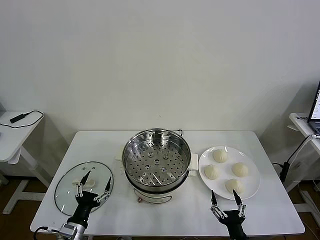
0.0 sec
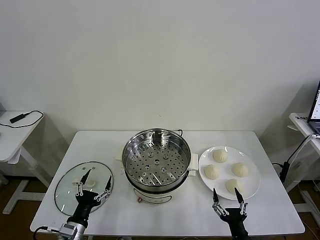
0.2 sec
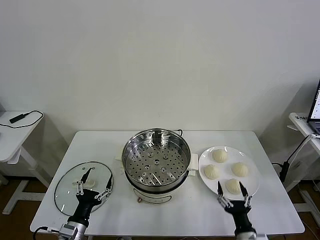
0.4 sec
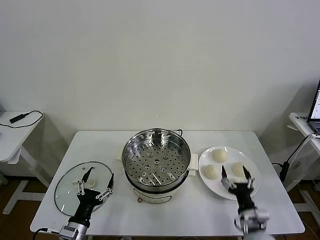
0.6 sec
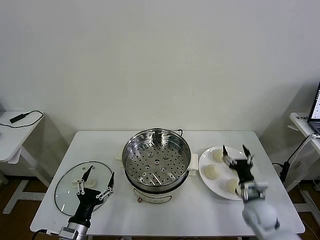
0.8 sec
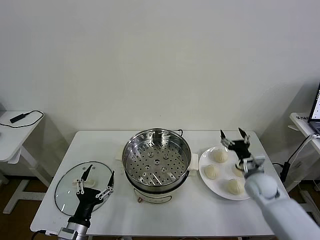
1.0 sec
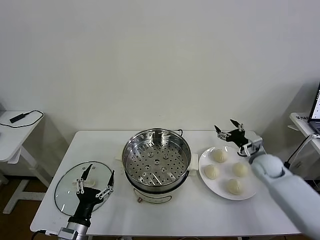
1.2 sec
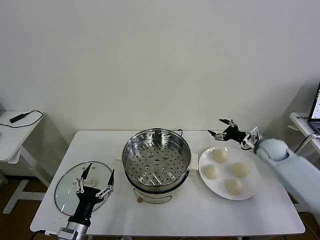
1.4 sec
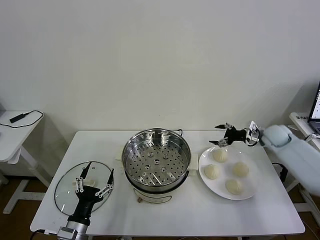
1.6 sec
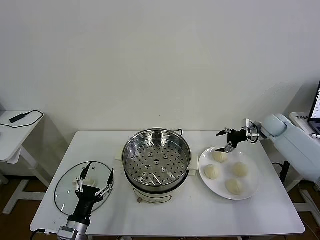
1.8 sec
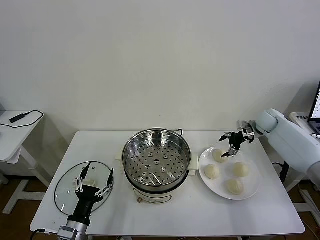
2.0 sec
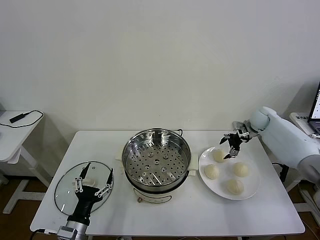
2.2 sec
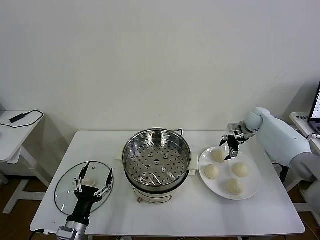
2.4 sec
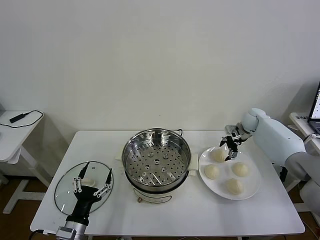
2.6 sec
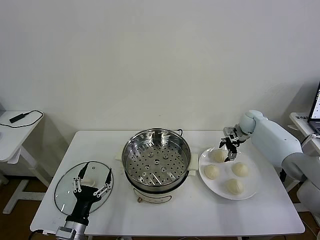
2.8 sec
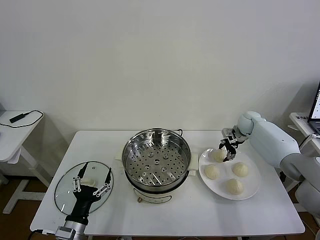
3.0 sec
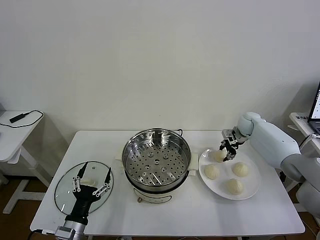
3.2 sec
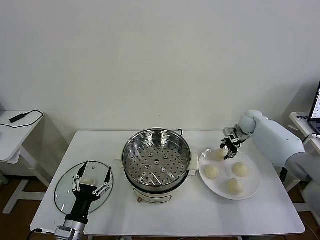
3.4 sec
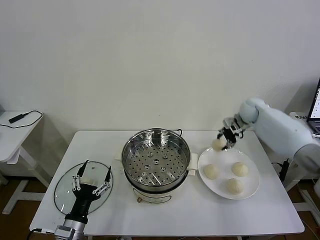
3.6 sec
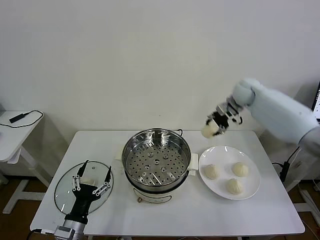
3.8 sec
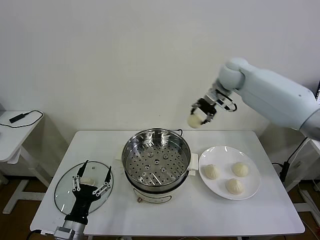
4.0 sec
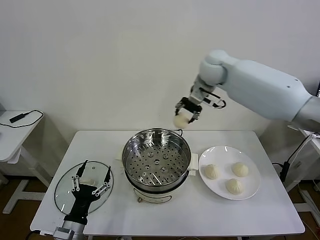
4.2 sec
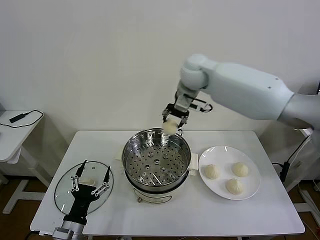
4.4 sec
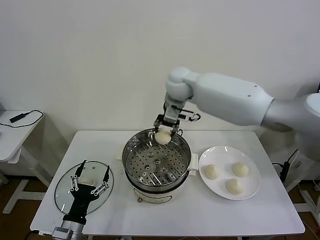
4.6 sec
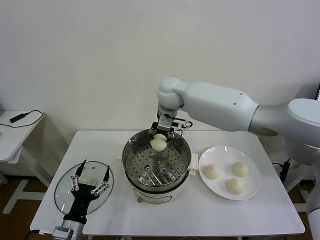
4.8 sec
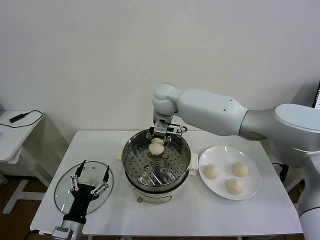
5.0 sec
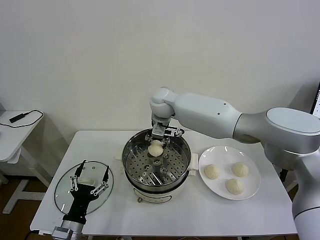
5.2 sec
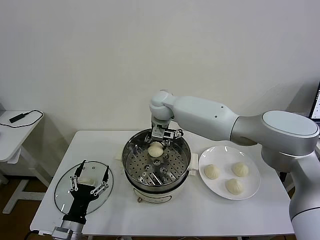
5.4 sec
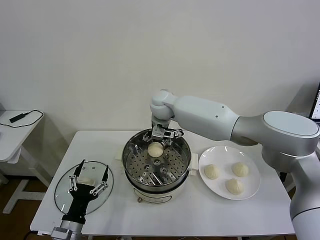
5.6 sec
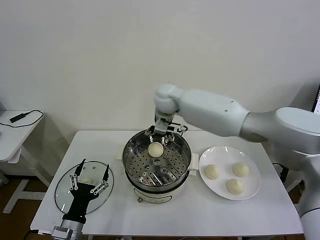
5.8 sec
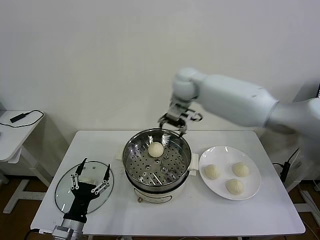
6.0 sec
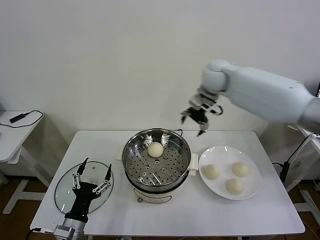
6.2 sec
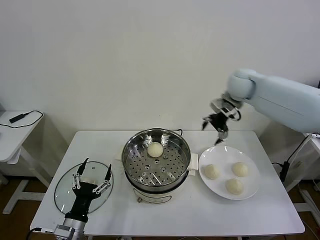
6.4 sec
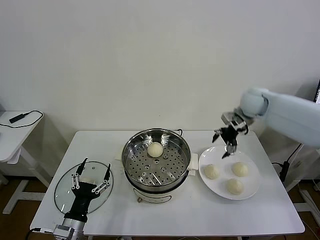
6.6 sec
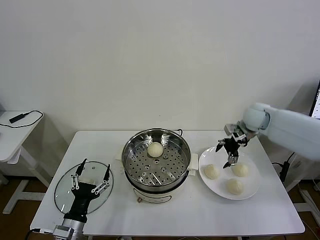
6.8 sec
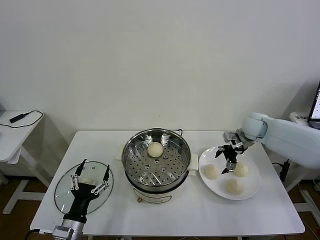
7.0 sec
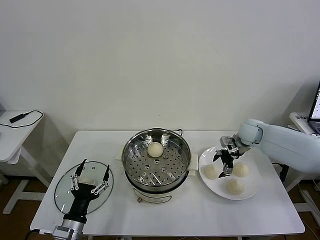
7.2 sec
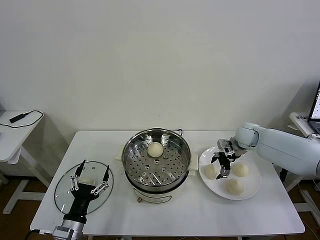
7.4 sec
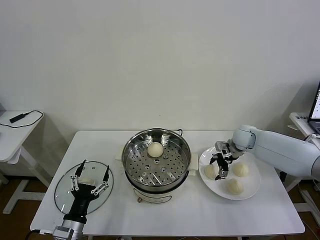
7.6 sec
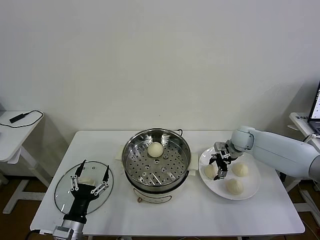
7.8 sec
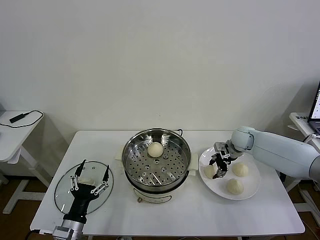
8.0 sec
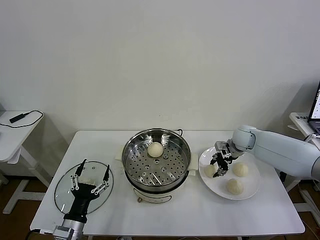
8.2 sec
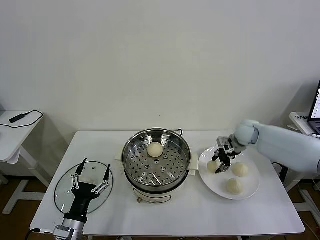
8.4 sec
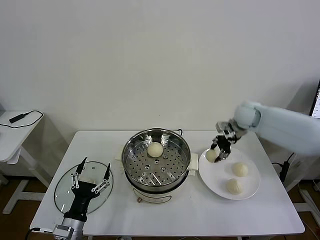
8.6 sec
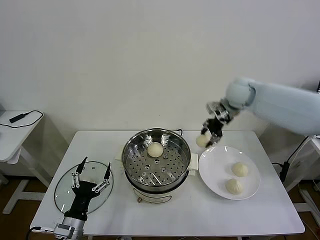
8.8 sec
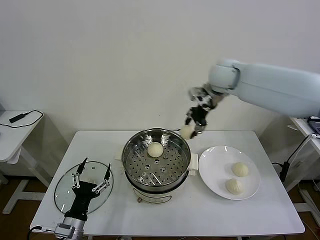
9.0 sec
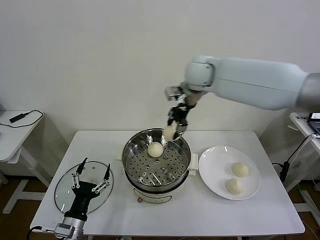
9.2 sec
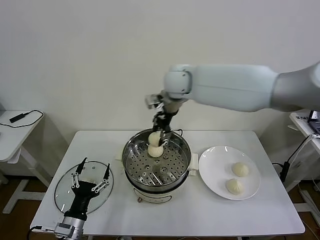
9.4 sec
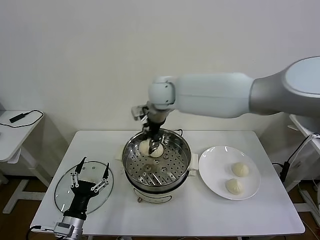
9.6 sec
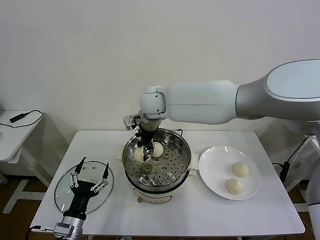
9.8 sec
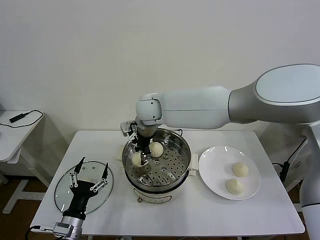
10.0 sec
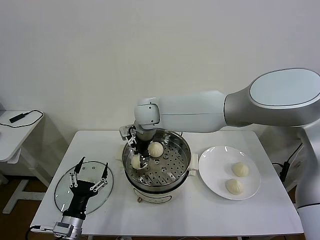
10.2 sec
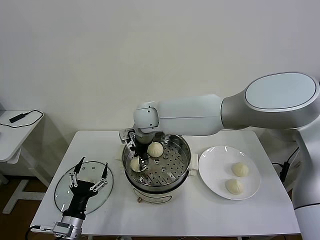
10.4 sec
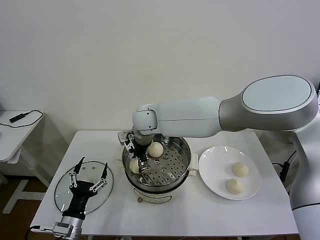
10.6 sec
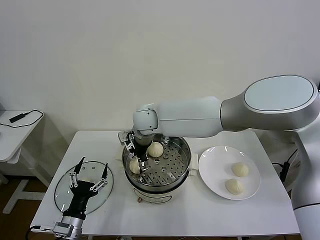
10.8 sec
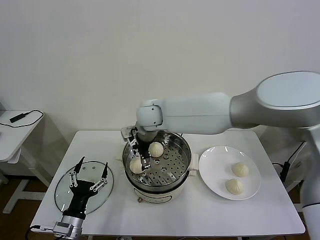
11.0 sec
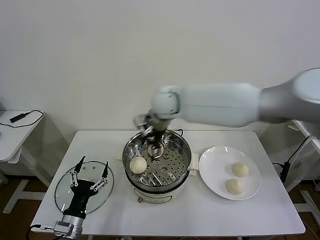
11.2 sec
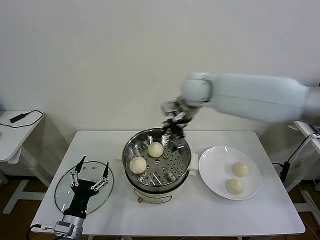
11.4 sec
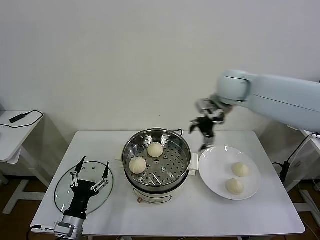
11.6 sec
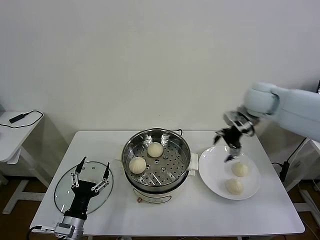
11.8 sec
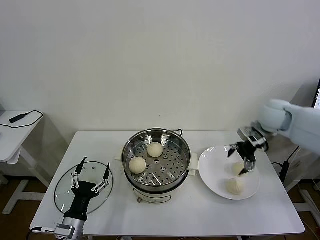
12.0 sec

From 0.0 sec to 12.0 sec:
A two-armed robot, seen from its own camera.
Task of the whole recording: take steamed baozi put them in steamer then cover it.
Step, from 0.0 sec to 3.2 sec: Grasp the baozi in the plate with right gripper.
Step, from 3.4 sec to 5.6 sec: Place the baozi on the steamer with right gripper.
Step, from 5.8 sec to 8.0 sec: Grasp the baozi in the plate with right gripper.
Step, from 8.2 sec to 10.8 sec: Place the baozi on the steamer with right gripper.
From 1.6 sec to 3.0 sec: The right gripper heads to the left and forward, covering some 10 cm, and closes its fingers.
From 3.0 sec to 4.4 sec: The right gripper shifts approximately 40 cm to the left and upward.
From 4.4 sec to 6.0 sec: The right gripper travels to the right by roughly 5 cm, and opens.
From 6.0 sec to 7.6 sec: The right gripper goes about 30 cm downward and to the right.
From 7.6 sec to 9.0 sec: The right gripper heads upward and to the left, covering approximately 30 cm, and closes up.
From 9.0 sec to 10.4 sec: The right gripper heads to the left and downward, covering about 25 cm.
From 10.4 sec to 12.0 sec: The right gripper goes roughly 40 cm to the right, and opens up.

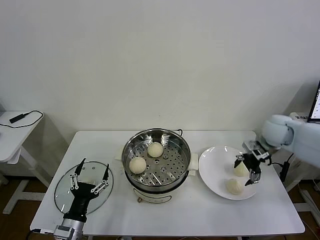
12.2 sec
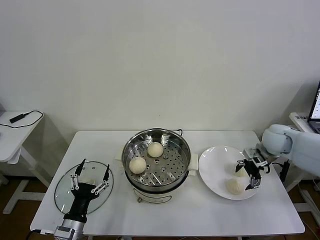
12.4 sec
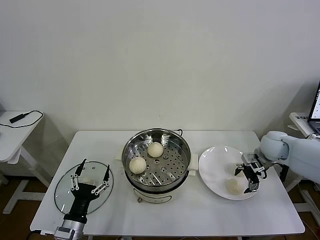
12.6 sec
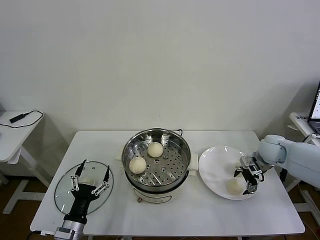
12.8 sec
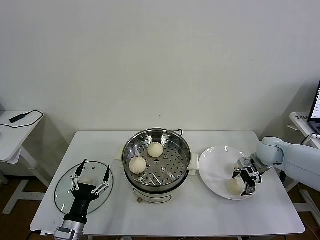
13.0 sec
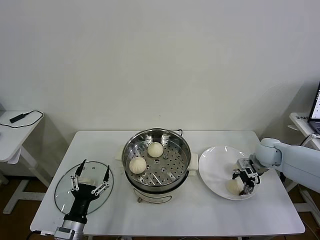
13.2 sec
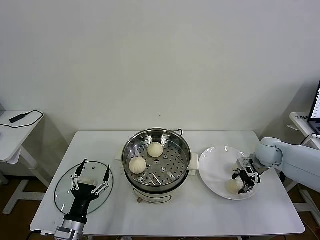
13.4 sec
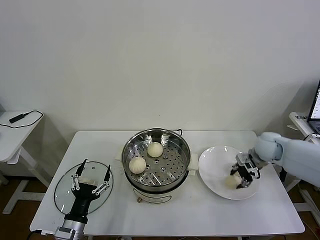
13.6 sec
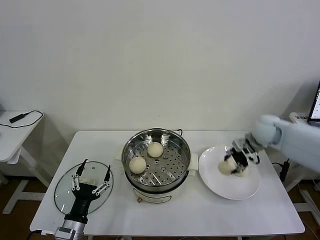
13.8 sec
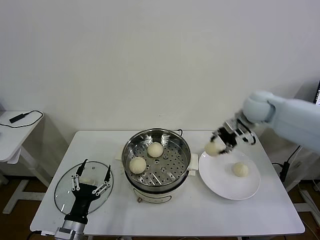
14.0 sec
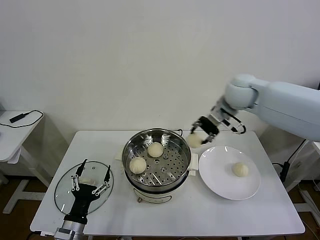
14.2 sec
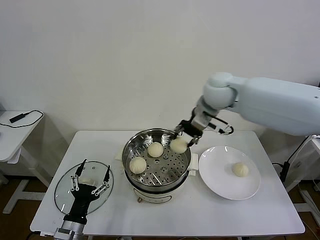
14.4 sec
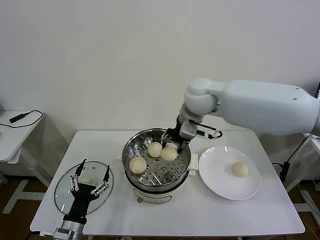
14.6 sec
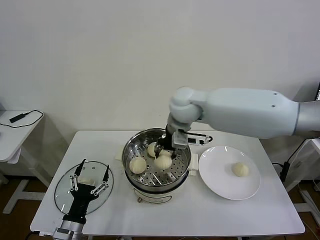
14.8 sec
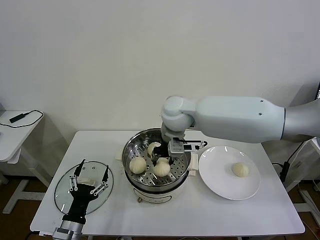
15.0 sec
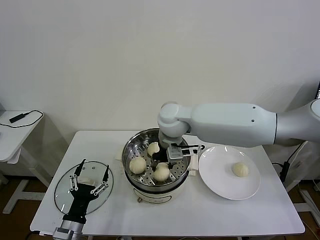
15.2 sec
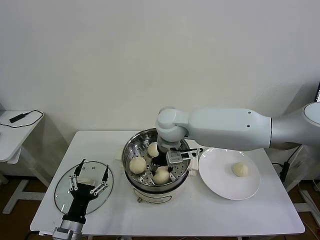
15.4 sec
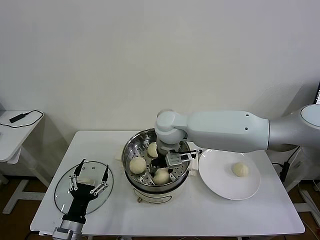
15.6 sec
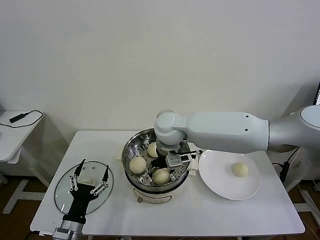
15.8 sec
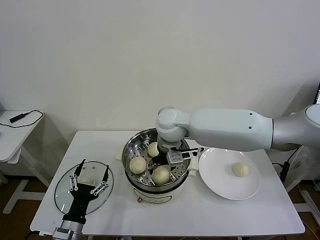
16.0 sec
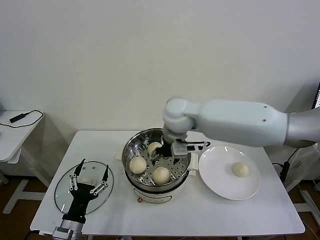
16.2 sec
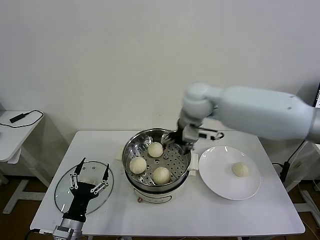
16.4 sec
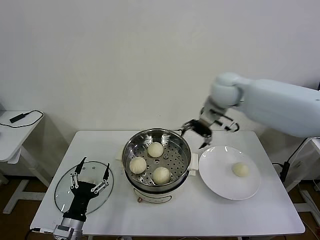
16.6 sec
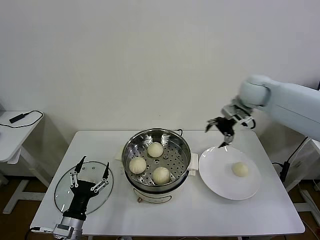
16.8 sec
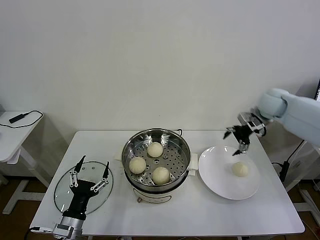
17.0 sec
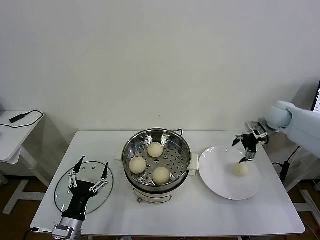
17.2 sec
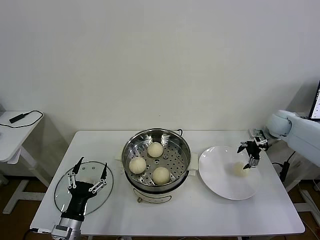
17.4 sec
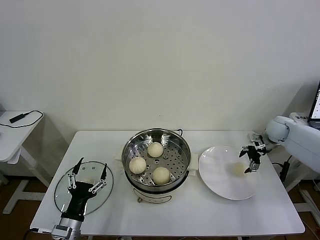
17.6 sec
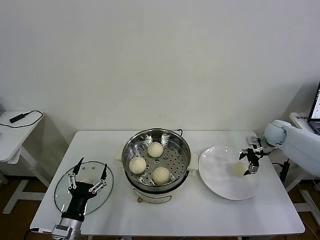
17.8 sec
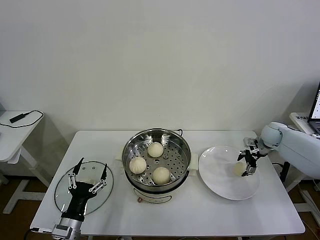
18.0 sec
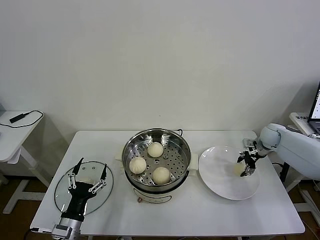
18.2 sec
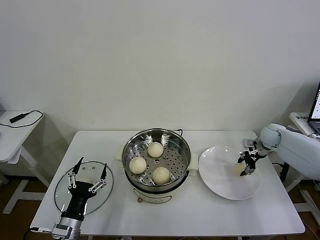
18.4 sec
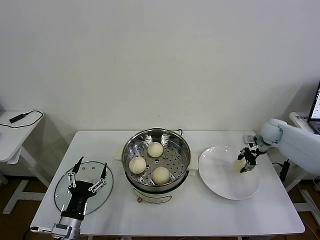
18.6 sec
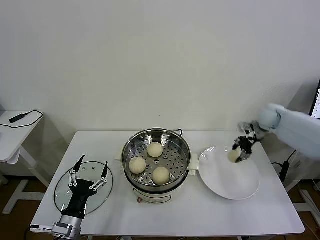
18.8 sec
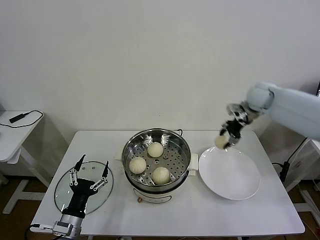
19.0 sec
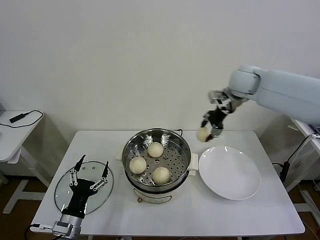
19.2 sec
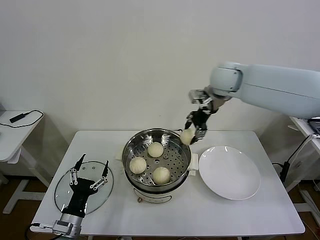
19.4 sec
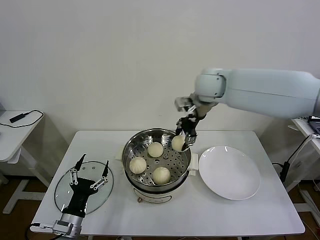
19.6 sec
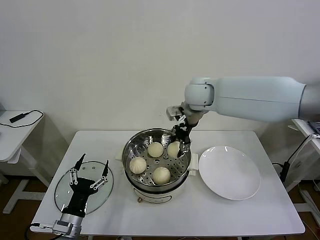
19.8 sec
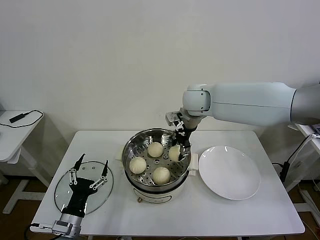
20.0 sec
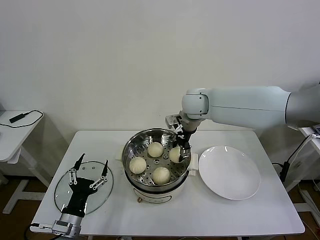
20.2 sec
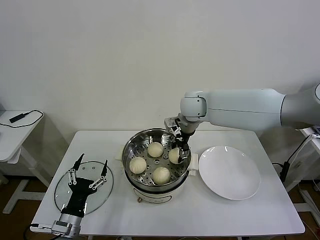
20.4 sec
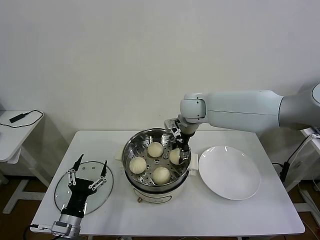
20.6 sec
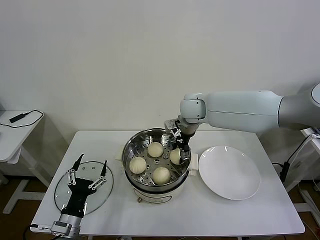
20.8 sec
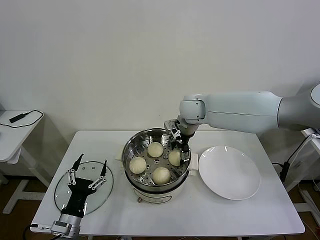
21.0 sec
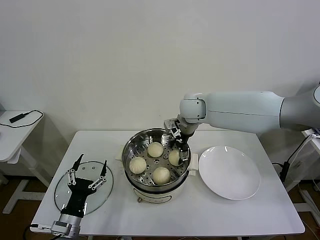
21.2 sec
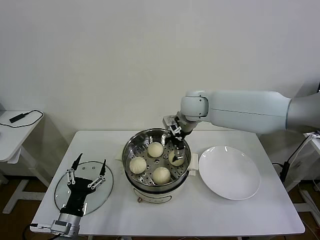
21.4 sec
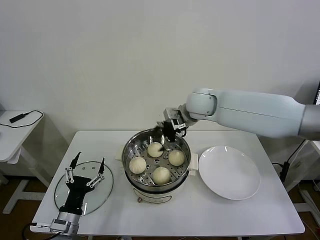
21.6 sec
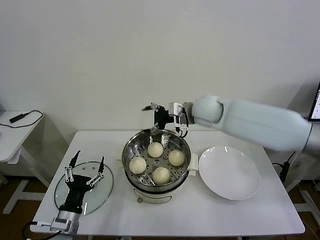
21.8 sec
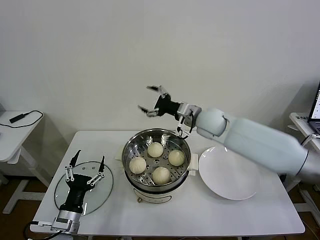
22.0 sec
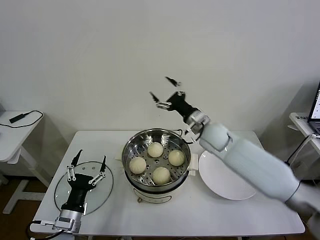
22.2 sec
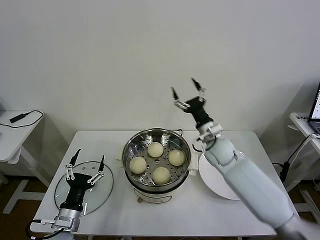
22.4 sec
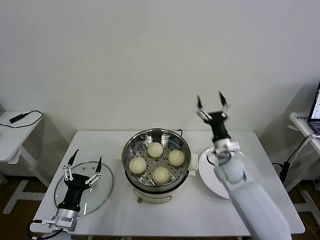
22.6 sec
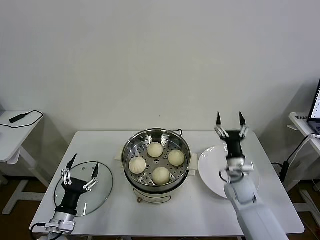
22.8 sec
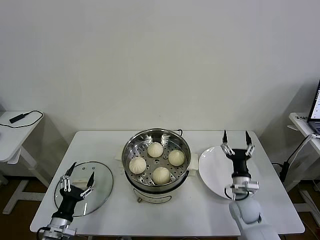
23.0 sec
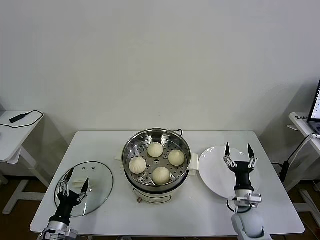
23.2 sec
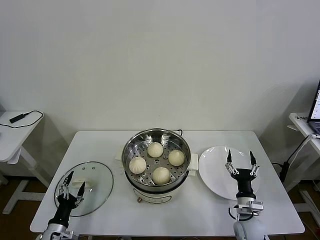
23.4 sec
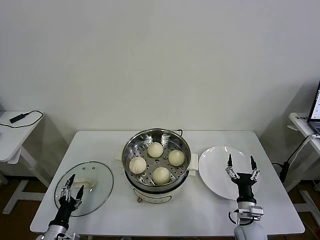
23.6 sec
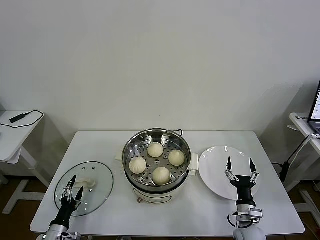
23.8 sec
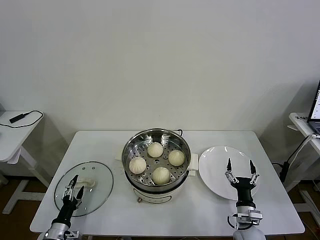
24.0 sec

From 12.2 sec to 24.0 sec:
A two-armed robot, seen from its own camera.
Task of the whole recording: take steamed baozi put them in steamer then cover it.
Step, from 13.6 sec to 15.8 sec: Place the baozi on the steamer with right gripper.
Step, from 16.0 sec to 18.4 sec: Grasp the baozi in the plate with right gripper.
Step, from 18.6 sec to 21.0 sec: Place the baozi on the steamer with right gripper.
From 12.2 sec to 13.6 sec: The right gripper closes up.
From 13.6 sec to 15.2 sec: The right gripper heads to the left, covering roughly 35 cm.
From 15.2 sec to 16.6 sec: The right gripper is displaced to the right by some 20 cm, and opens its fingers.
From 16.6 sec to 18.2 sec: The right gripper shifts about 30 cm to the right and downward, and closes up.
From 18.2 sec to 19.6 sec: The right gripper travels to the left and upward by some 40 cm.
From 19.6 sec to 21.0 sec: The right gripper heads downward, covering some 10 cm, and opens its fingers.
From 21.0 sec to 22.6 sec: The right gripper goes approximately 25 cm downward, to the right and backward.
From 22.6 sec to 24.0 sec: The right gripper moves backward and downward, some 25 cm, while the left gripper goes about 15 cm downward and to the left.
